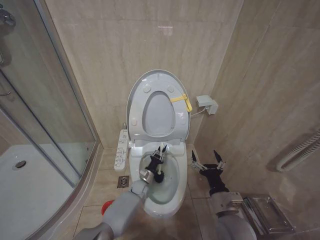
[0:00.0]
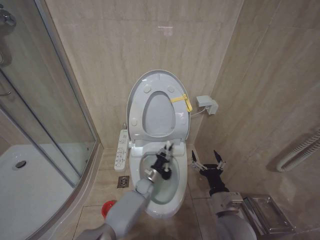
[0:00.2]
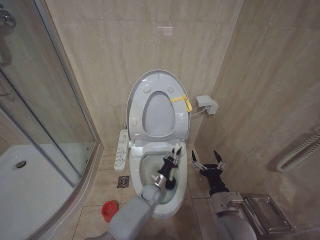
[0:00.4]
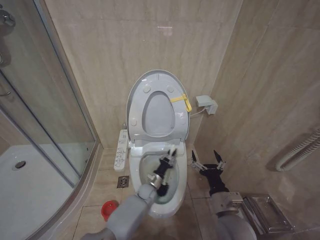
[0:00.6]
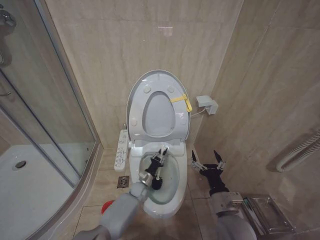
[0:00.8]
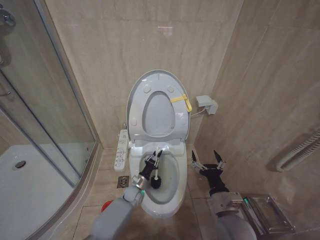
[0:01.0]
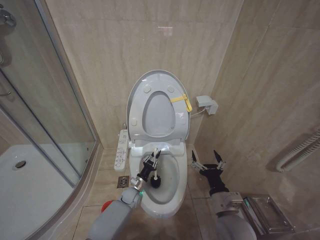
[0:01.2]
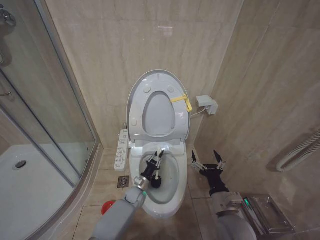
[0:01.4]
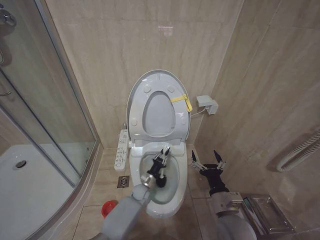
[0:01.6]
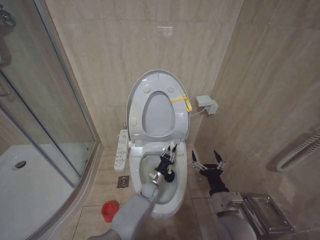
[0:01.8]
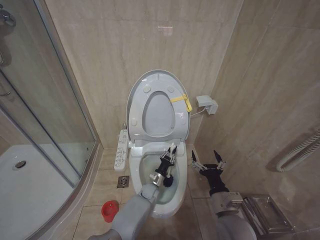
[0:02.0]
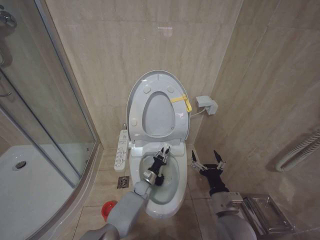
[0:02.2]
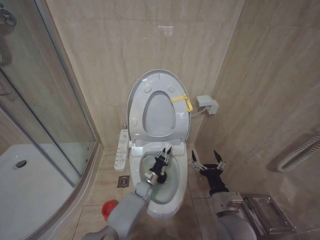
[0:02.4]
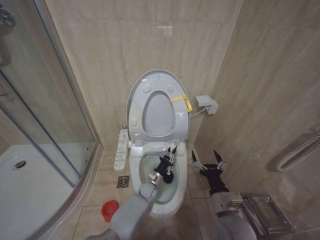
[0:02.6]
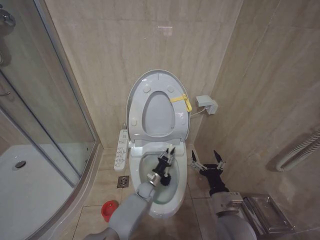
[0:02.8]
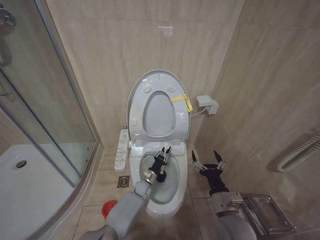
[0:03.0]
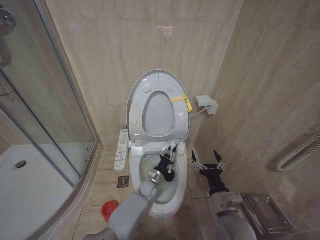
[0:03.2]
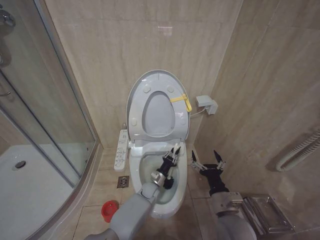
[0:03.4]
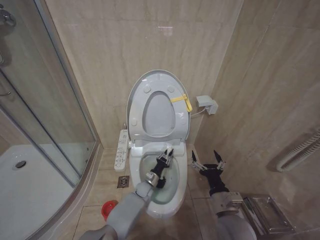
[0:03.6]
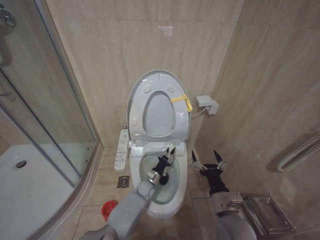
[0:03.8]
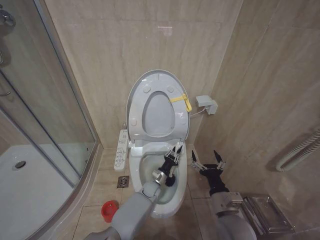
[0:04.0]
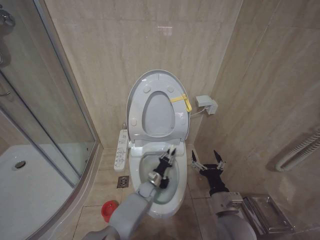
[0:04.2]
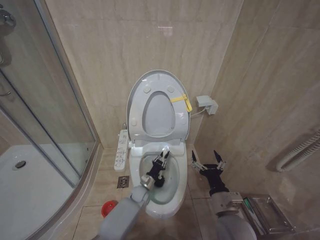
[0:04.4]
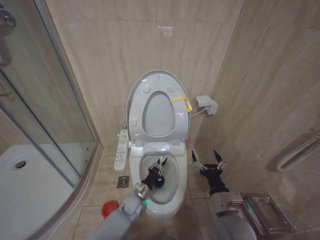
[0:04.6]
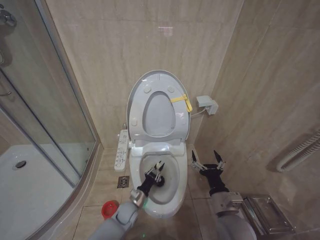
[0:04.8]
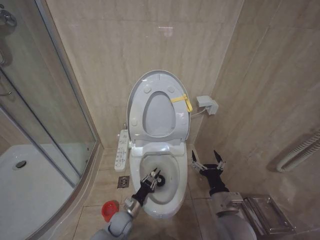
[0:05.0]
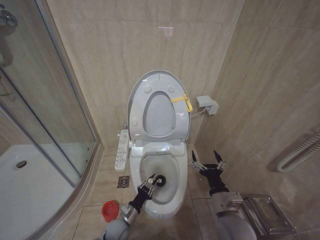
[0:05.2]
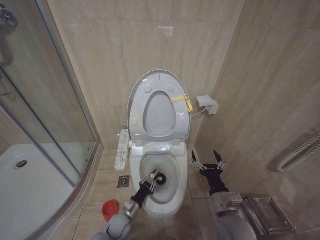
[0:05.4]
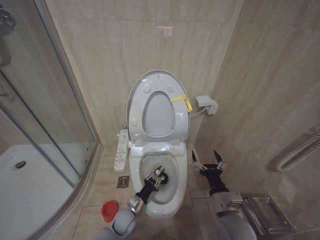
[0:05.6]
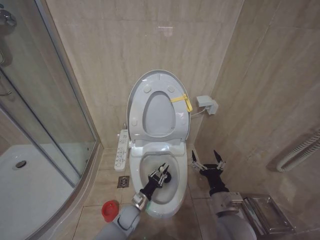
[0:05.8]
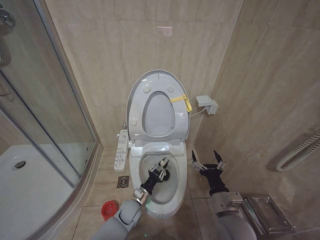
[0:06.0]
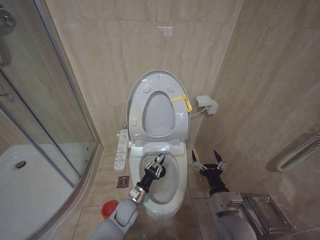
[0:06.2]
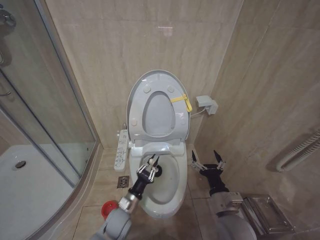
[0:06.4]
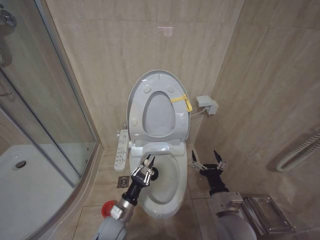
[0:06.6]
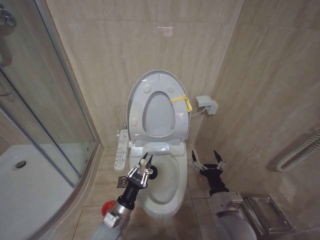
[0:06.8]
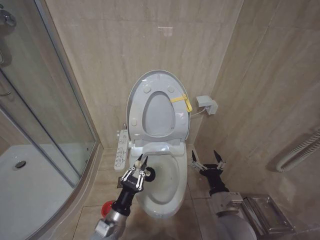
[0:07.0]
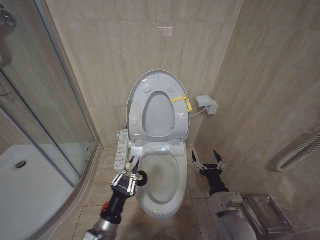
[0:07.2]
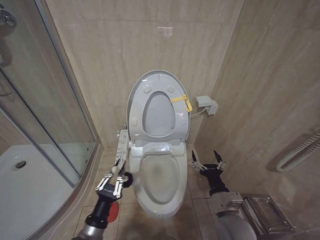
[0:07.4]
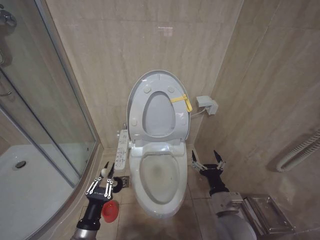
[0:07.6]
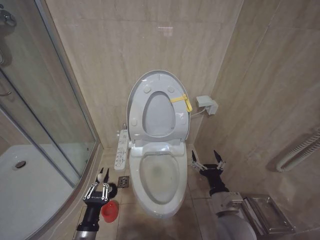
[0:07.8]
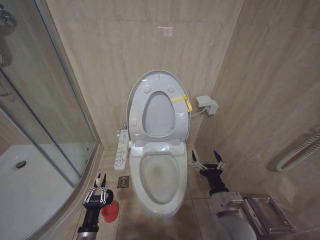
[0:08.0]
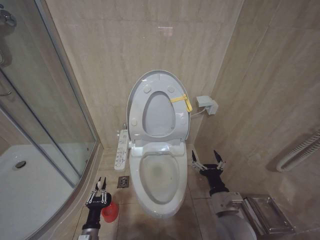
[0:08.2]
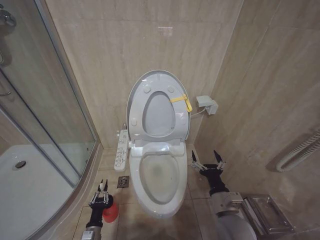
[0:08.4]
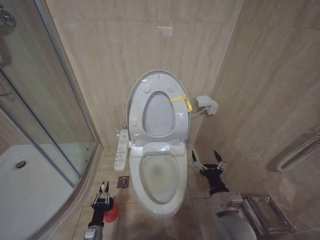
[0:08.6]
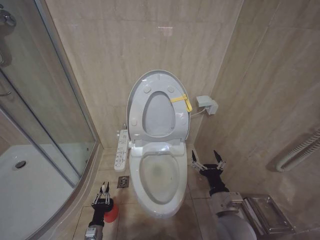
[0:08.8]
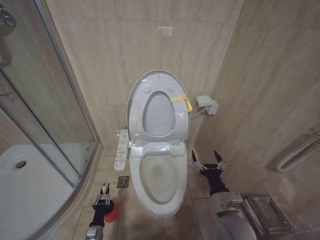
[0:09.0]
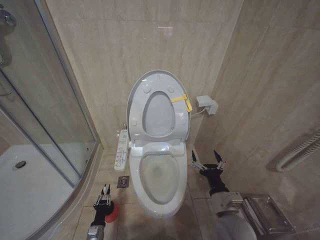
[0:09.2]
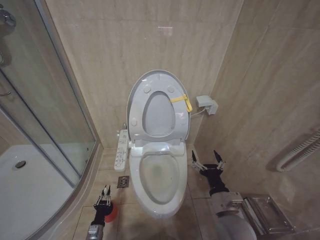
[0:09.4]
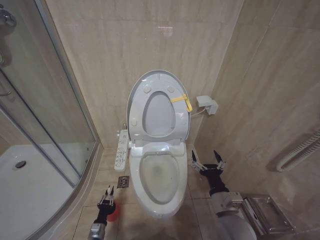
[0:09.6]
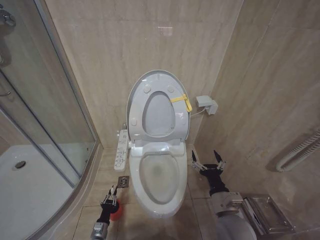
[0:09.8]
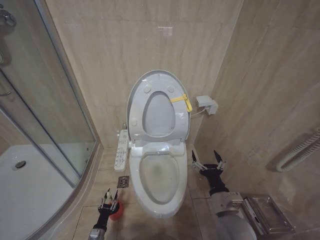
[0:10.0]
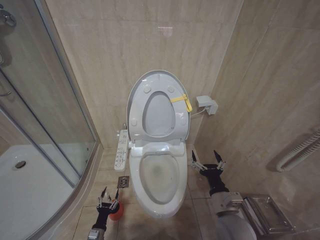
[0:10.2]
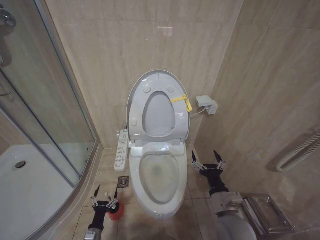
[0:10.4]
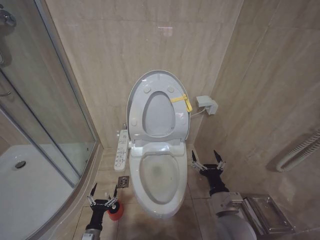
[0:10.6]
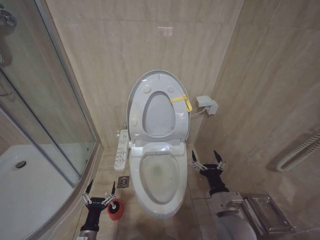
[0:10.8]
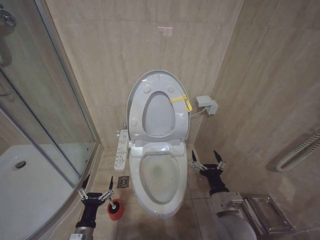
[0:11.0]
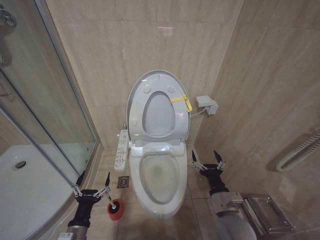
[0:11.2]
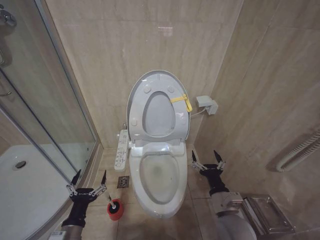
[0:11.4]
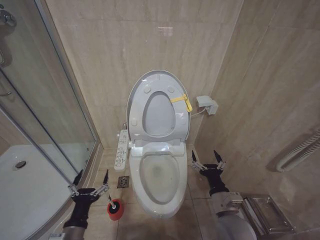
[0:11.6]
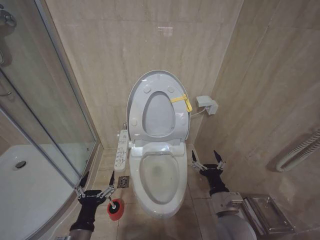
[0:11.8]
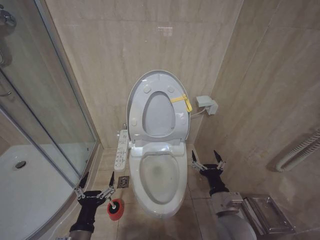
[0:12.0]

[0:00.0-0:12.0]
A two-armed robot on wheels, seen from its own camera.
Task of the whole recording: Open the toilet lid, clean the toilet bowl with a toilet brush, close the toilet lid, and flush.
0:00.0 to 0:01.6: The left gripper moves left and right over some 10 cm, changing direction 2 times.
0:03.0 to 0:04.4: The left gripper goes left and right, approximately 5 cm each way, reversing 3 times.
0:04.4 to 0:06.0: The left gripper shifts some 10 cm backward.
0:06.0 to 0:07.6: The left gripper goes approximately 25 cm backward, upward and to the left.
0:07.6 to 0:09.0: The left gripper shifts about 25 cm downward.
0:09.0 to 0:10.4: The left gripper opens up.
0:10.4 to 0:12.0: The left gripper travels upward by roughly 25 cm.

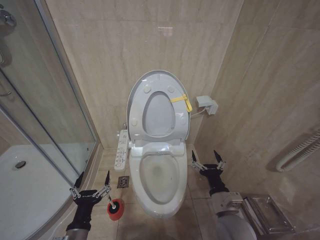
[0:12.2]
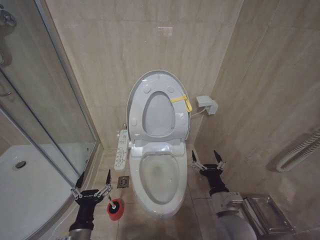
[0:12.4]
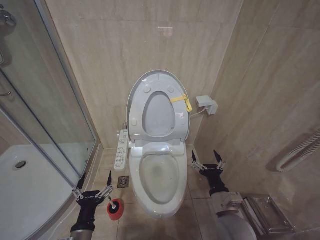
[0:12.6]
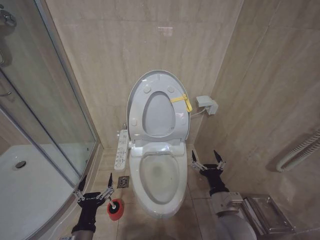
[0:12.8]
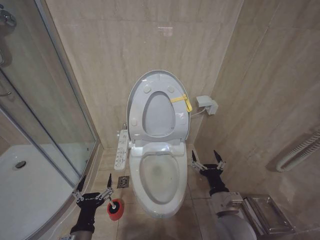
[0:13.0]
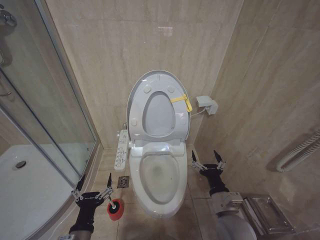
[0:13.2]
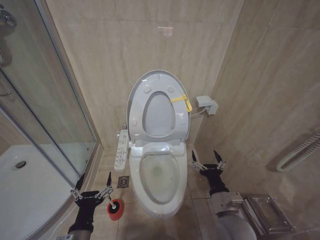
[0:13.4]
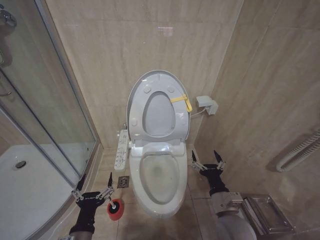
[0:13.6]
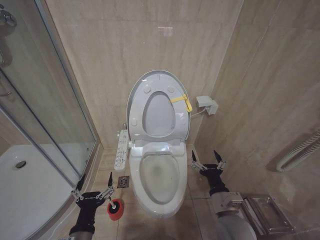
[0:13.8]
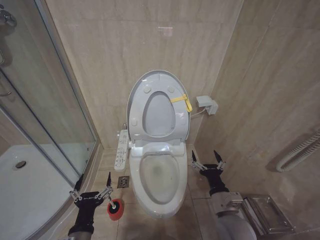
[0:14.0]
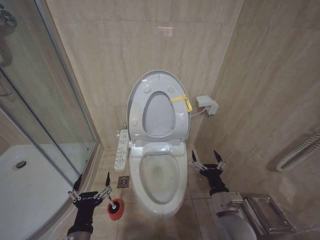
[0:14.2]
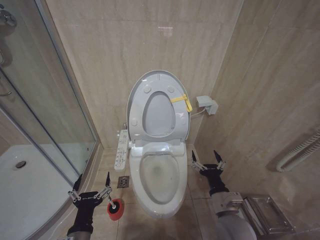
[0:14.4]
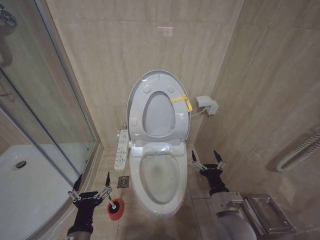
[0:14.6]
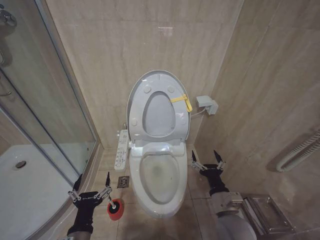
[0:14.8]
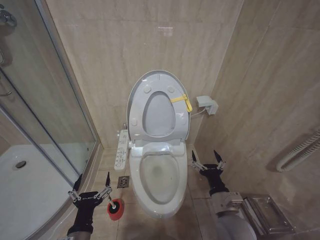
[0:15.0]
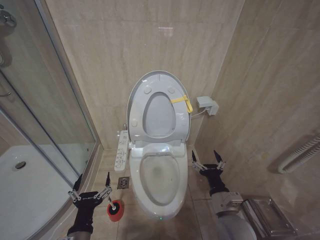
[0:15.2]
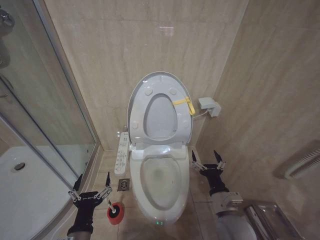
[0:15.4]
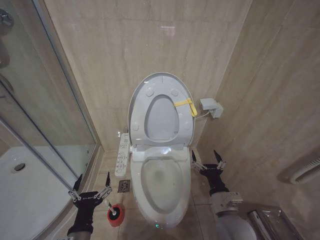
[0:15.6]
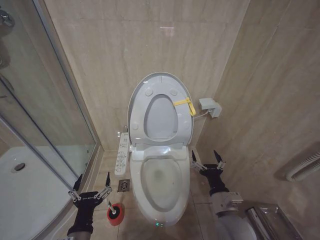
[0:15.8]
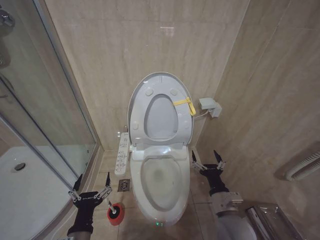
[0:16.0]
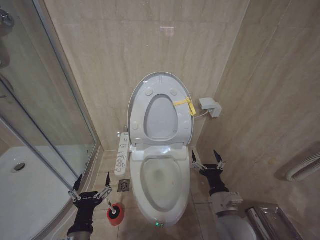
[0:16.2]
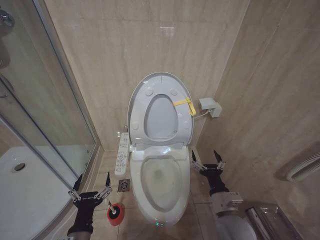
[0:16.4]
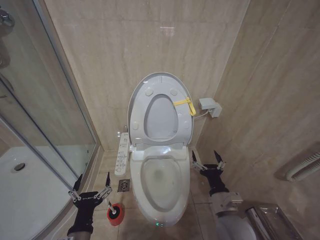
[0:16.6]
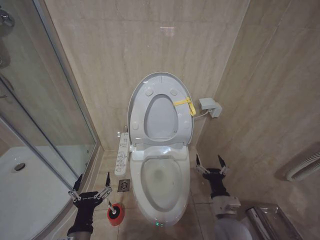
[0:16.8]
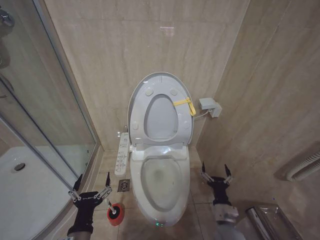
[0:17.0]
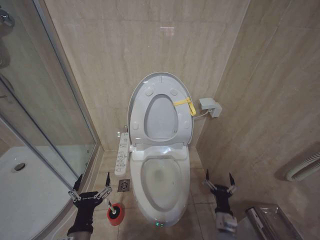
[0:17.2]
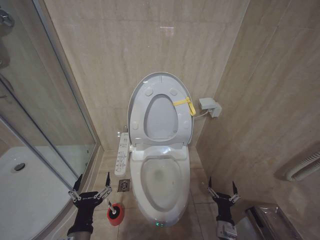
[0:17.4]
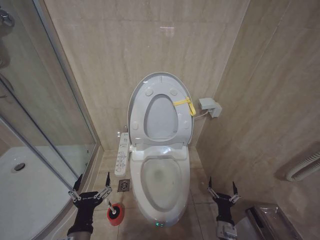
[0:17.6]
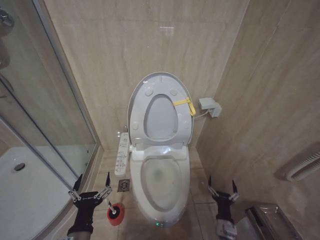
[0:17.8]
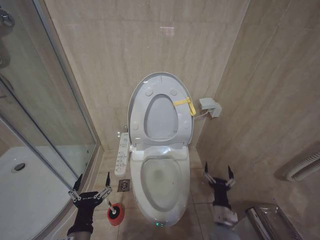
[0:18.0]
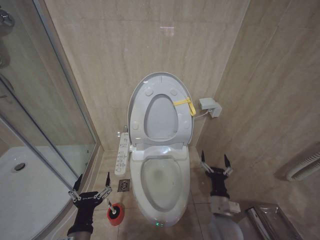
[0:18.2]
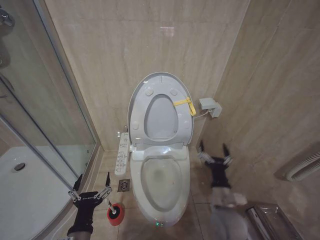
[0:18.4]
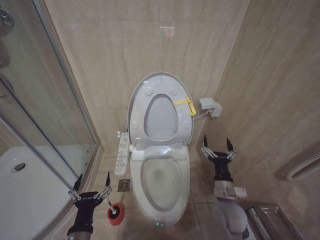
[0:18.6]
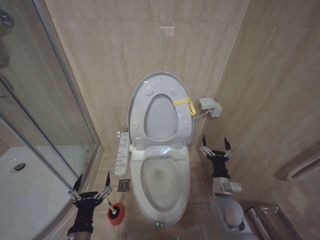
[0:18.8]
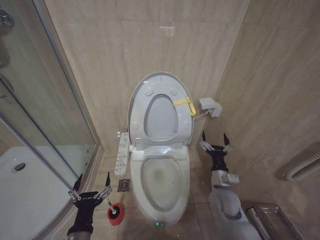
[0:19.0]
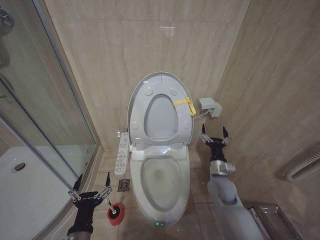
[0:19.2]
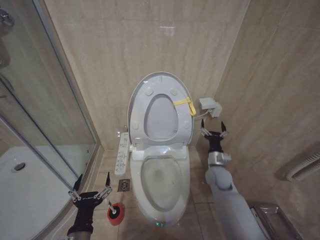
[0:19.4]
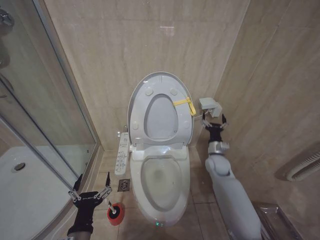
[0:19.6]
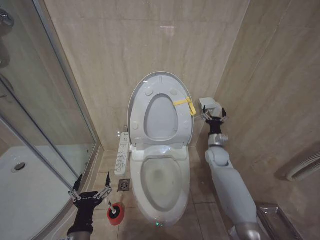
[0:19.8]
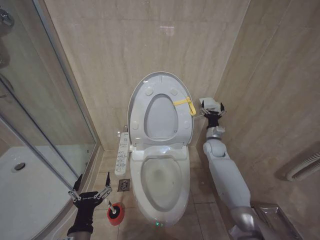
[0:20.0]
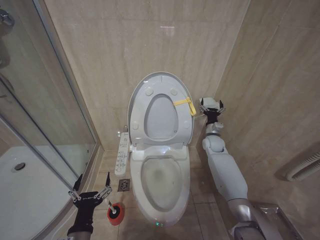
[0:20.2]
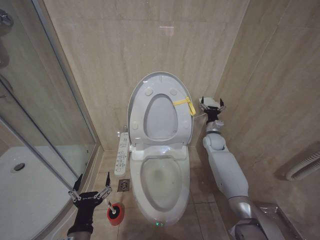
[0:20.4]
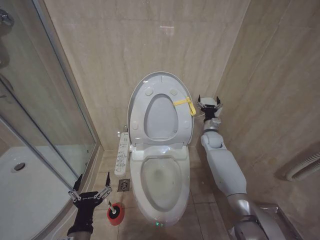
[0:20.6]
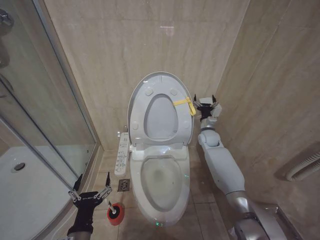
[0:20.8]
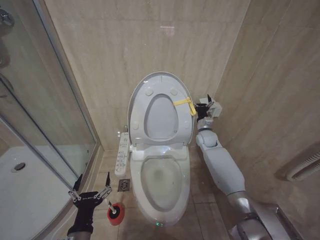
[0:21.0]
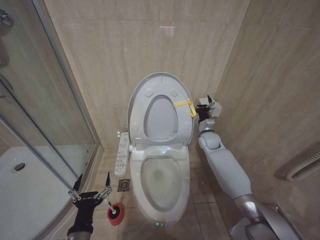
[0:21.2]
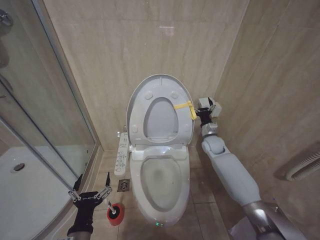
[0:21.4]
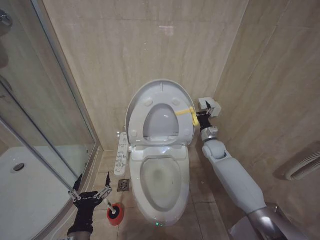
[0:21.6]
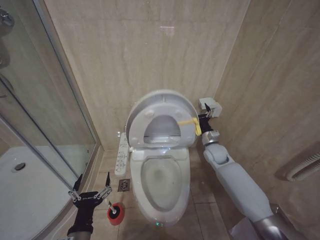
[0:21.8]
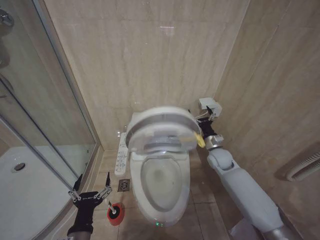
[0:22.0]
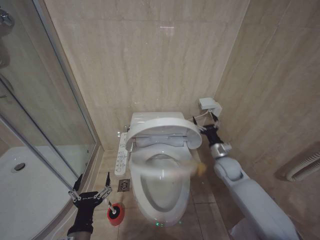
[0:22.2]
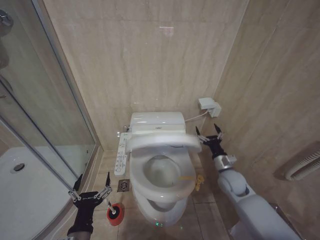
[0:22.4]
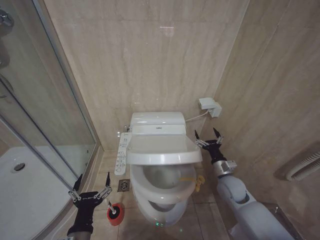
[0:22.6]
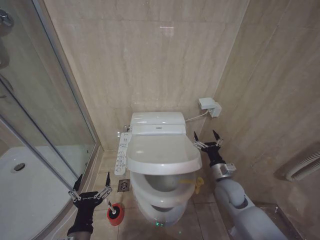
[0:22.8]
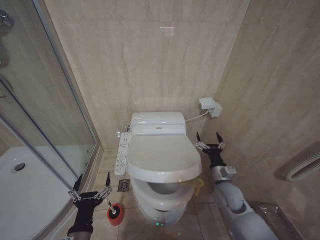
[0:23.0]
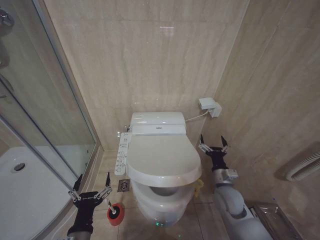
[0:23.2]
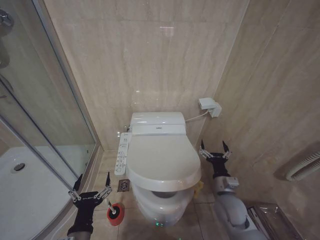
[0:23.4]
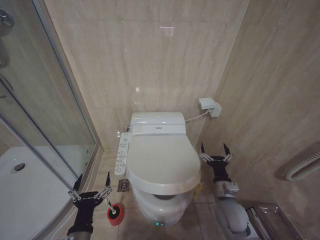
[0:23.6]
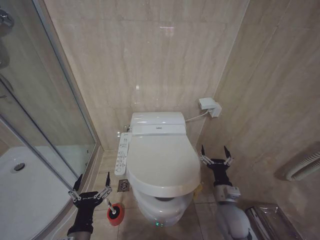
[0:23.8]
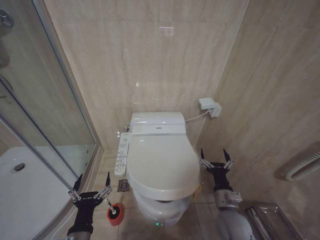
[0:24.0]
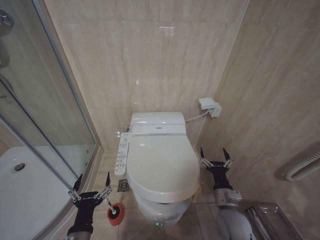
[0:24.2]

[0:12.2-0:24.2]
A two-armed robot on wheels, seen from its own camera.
Task of the whole recording: Open the toilet lid, clean the toilet bowl with a toilet brush, close the toilet lid, and flush.
0:12.2 to 0:13.8: The grippers move only a little.
0:13.8 to 0:16.6: Both grippers stay put.
0:16.6 to 0:18.2: The right gripper shifts roughly 10 cm downward.
0:18.2 to 0:19.8: The right gripper heads forward, covering some 25 cm.
0:19.8 to 0:21.2: The right gripper shifts some 5 cm forward.
0:21.2 to 0:22.6: The right gripper travels backward by about 20 cm.
0:22.6 to 0:24.2: The right gripper goes roughly 15 cm backward and to the left.
